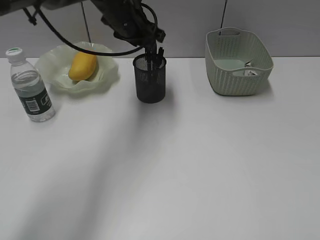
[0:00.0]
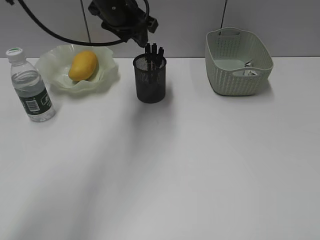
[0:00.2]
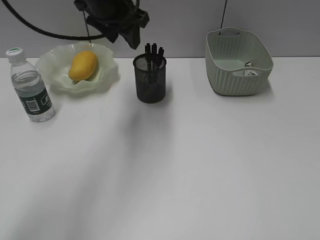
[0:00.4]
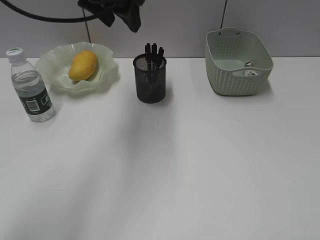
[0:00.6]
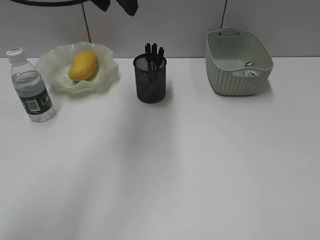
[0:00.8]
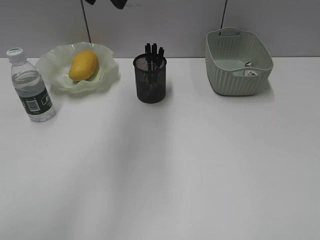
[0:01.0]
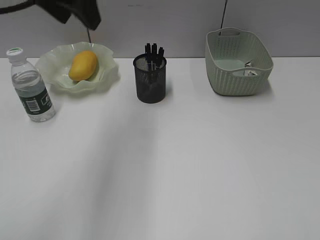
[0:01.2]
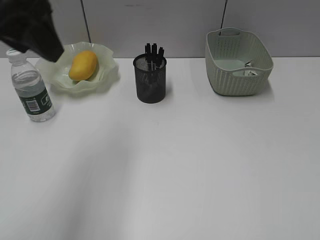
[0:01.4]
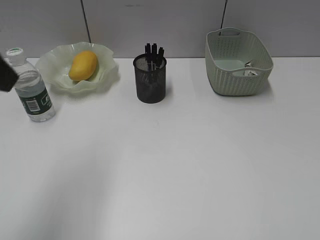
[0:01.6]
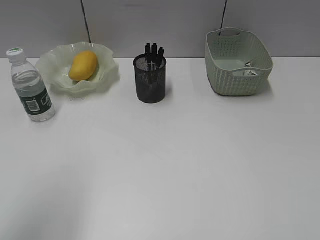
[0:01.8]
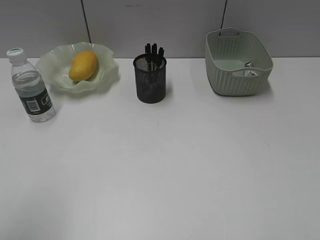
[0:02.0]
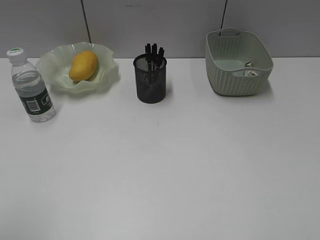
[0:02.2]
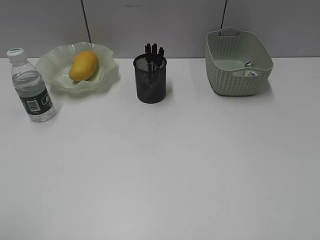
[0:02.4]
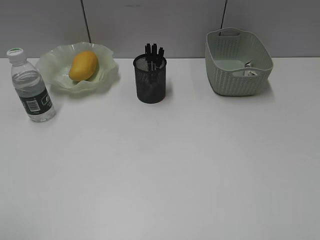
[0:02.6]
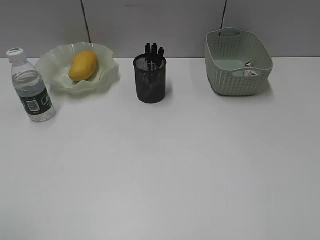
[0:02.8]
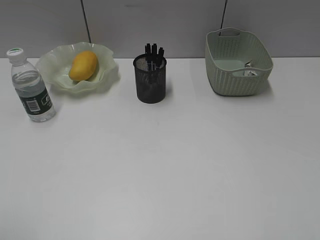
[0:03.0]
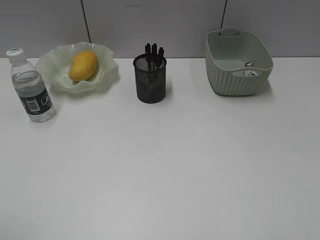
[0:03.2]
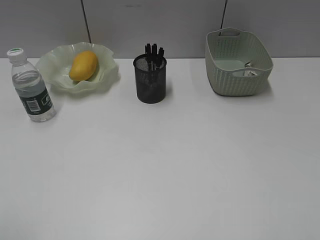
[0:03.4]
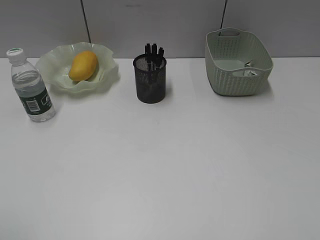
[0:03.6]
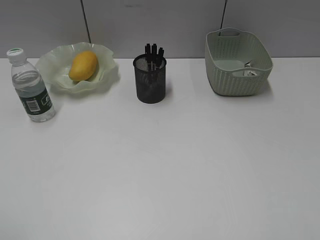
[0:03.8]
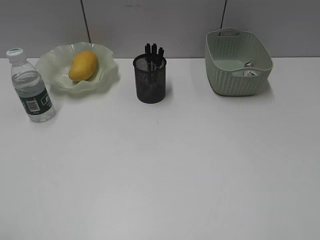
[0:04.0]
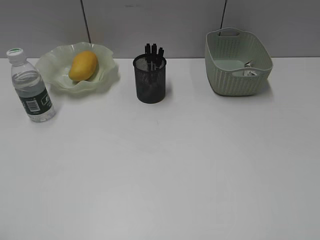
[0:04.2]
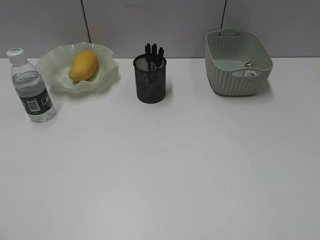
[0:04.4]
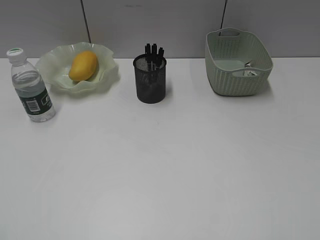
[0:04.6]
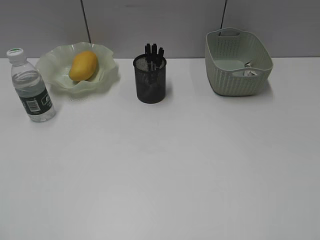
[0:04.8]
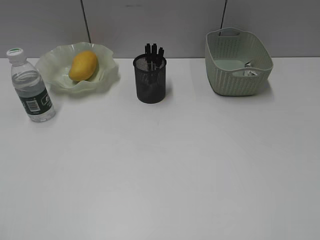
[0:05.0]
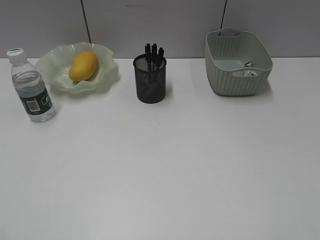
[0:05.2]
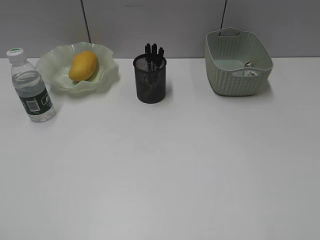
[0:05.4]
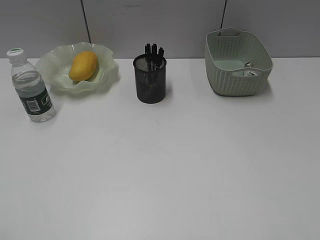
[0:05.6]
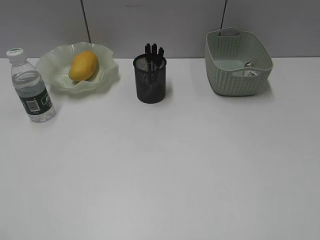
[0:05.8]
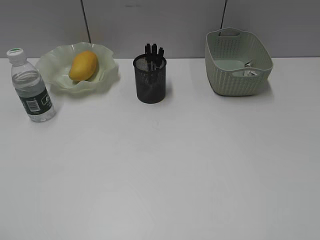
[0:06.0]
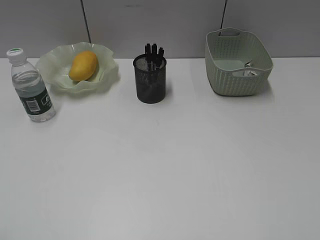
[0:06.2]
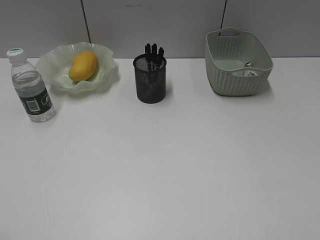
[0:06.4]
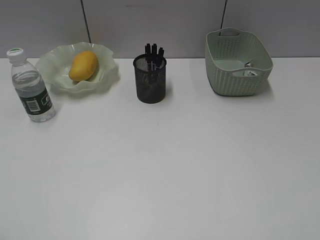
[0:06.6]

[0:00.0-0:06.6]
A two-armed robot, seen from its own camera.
0:00.0 to 0:01.6: The left gripper is displaced backward, to the left and upward by some 35 cm.
0:01.6 to 0:03.2: The left gripper travels backward, to the left and downward by some 20 cm.
0:05.0 to 0:06.6: Both grippers stay about where they are.

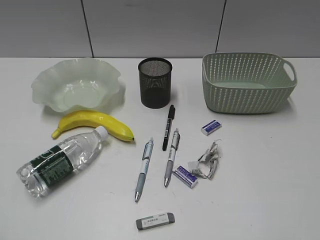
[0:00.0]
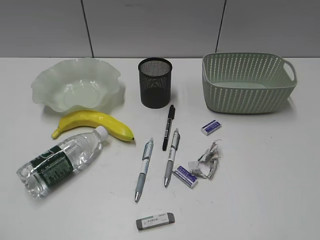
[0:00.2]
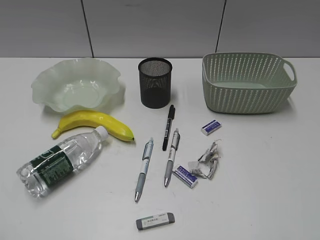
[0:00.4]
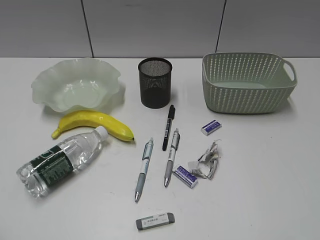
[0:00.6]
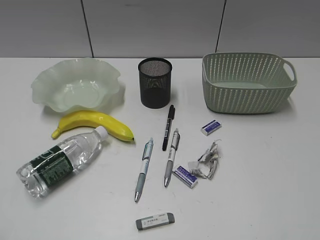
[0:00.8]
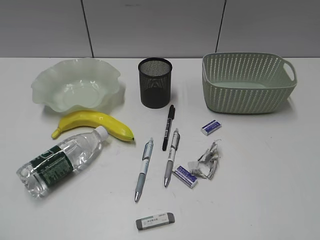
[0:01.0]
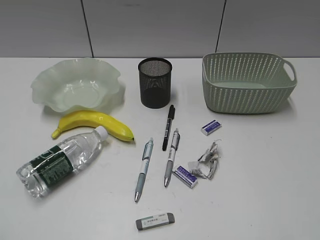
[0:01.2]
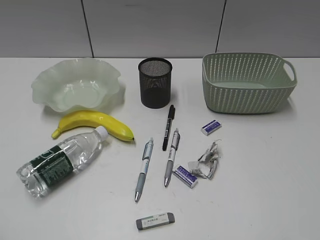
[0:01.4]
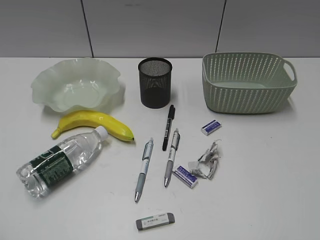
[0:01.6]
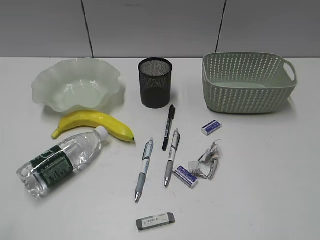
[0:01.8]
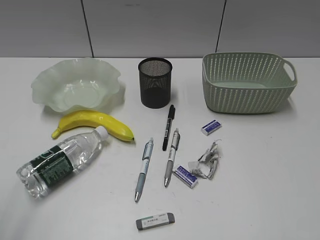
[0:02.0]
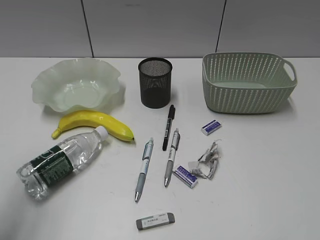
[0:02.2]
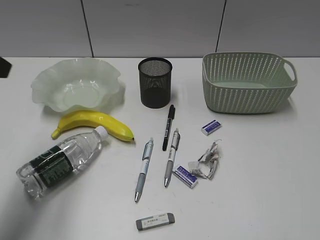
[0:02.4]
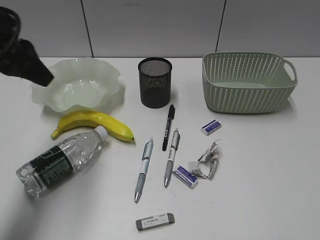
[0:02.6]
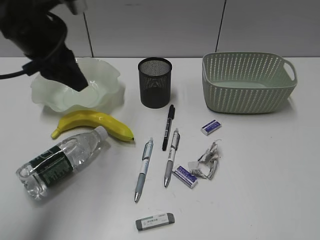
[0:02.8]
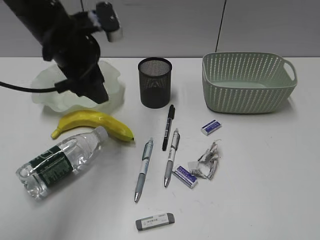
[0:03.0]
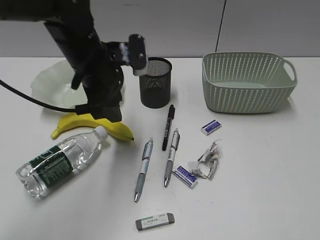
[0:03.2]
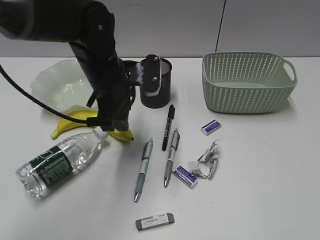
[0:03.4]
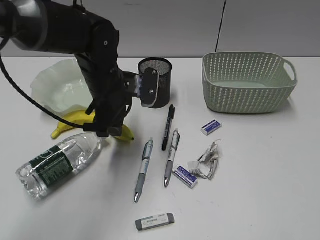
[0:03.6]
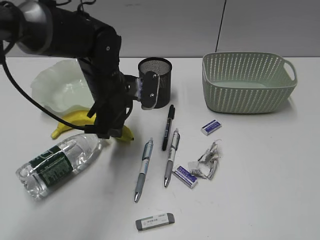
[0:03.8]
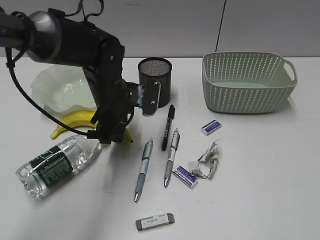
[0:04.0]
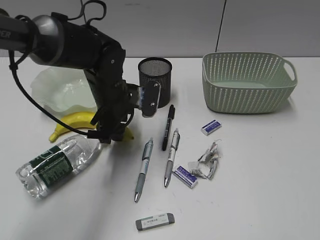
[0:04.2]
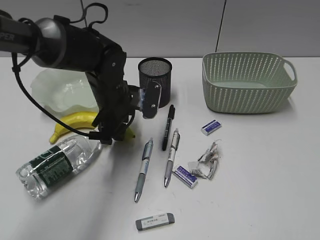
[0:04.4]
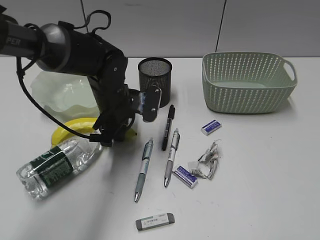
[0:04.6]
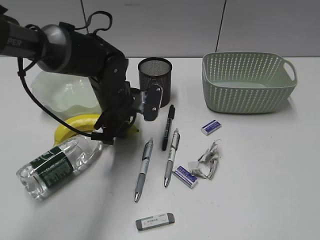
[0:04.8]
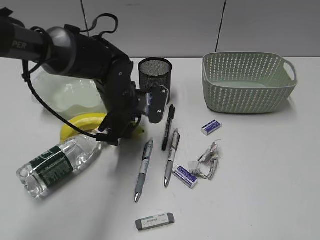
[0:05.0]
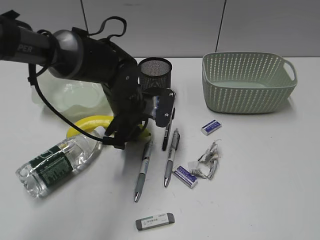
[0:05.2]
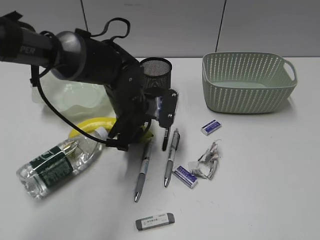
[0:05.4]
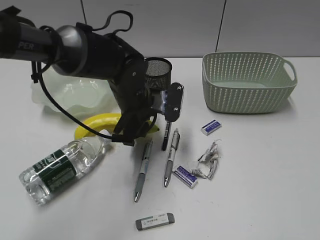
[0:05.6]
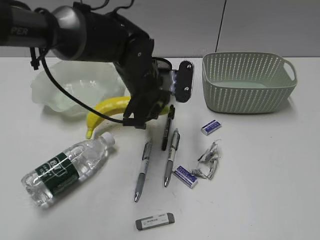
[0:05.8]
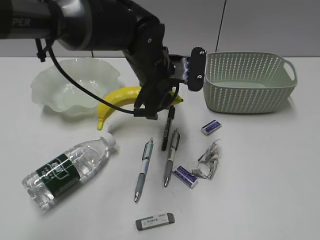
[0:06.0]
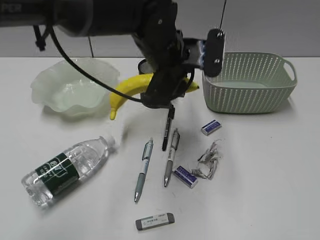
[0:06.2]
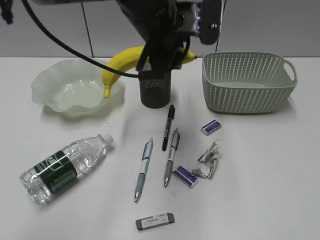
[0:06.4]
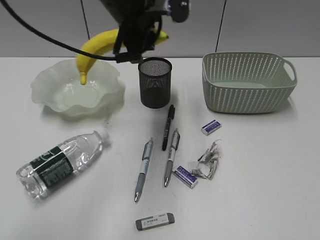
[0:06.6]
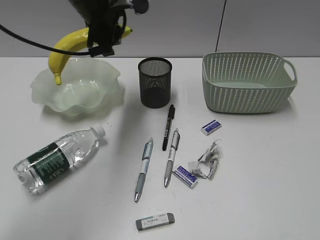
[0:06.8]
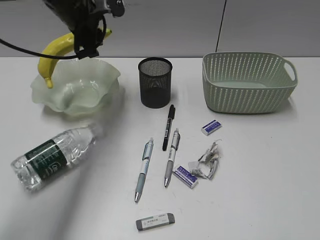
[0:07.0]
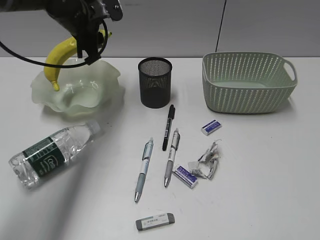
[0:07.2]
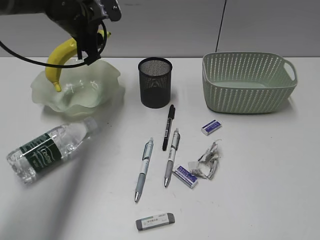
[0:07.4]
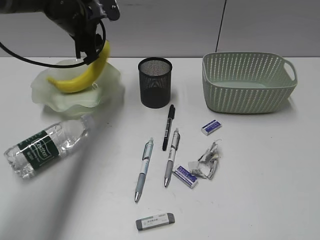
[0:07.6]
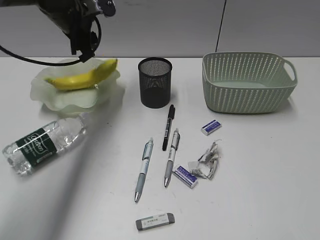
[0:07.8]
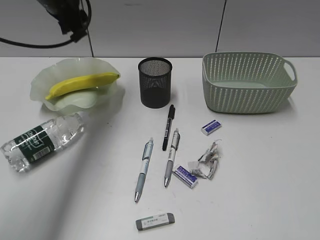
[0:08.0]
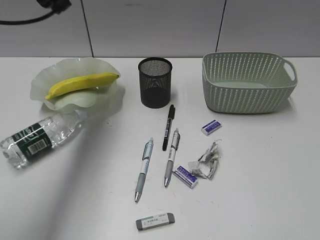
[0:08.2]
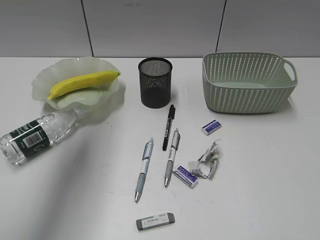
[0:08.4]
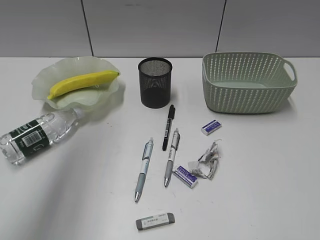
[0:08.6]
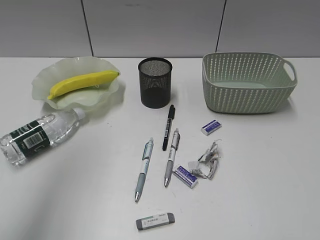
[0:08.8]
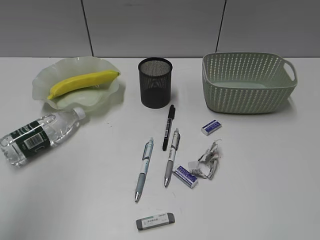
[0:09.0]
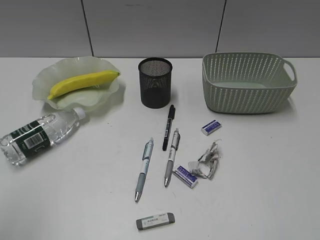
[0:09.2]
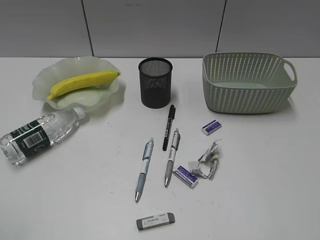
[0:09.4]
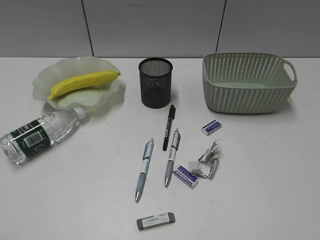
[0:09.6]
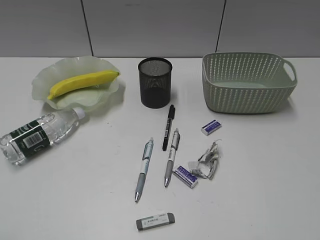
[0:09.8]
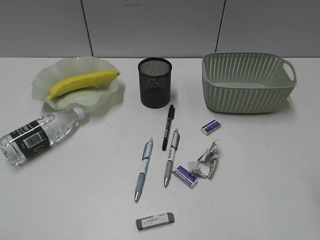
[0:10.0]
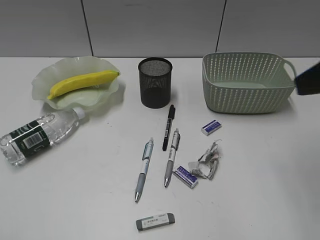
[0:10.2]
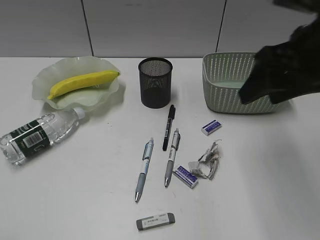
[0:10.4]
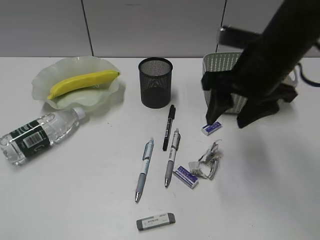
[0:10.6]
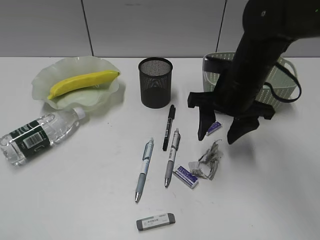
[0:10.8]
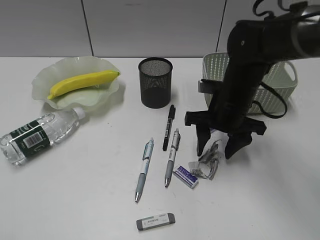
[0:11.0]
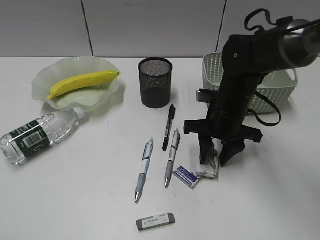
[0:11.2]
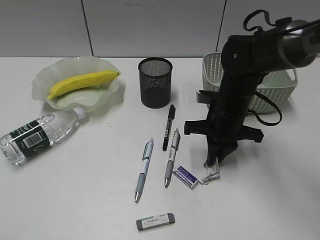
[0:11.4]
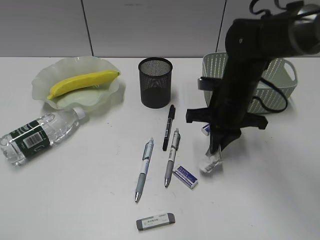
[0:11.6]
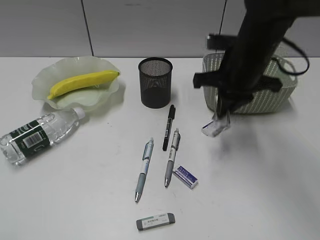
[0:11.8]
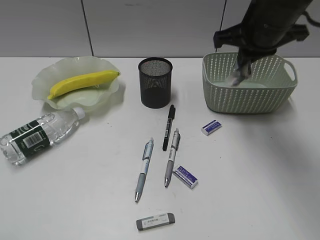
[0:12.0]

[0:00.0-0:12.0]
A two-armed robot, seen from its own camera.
Step, 0:01.6 to 0:04.6: Grasp the banana with left gripper.
Step, 0:04.8 to 0:07.6: Place the banana in the plate with left gripper.
Step, 0:07.8 to 0:11.4: Grasp the waste paper with right gripper.
0:01.6 to 0:03.0: The left gripper travels forward and to the right by roughly 40 cm.
0:03.0 to 0:04.4: The left gripper shifts roughly 15 cm downward and to the right.
0:04.4 to 0:06.0: The left gripper travels to the right and upward by about 10 cm.
0:06.0 to 0:07.6: The left gripper heads to the left and forward, covering approximately 20 cm.
0:07.6 to 0:09.0: The left gripper goes roughly 40 cm backward and upward.
0:09.0 to 0:10.4: The left gripper shifts roughly 20 cm backward and downward, while the right gripper shifts approximately 30 cm forward and to the left, and opens.
0:10.4 to 0:12.0: The right gripper is displaced forward by about 10 cm, travels downward and back again, approximately 20 cm each way, and closes up.

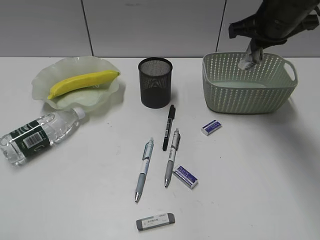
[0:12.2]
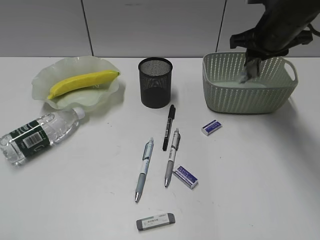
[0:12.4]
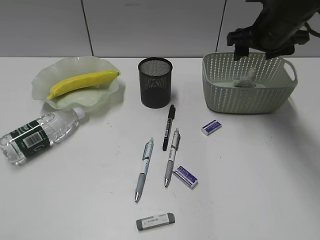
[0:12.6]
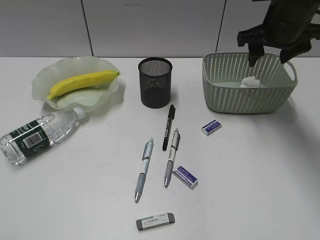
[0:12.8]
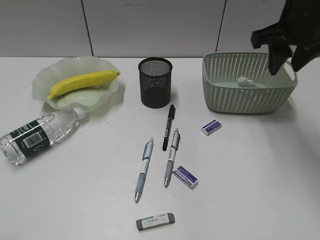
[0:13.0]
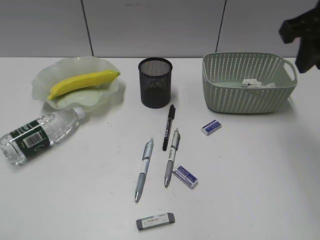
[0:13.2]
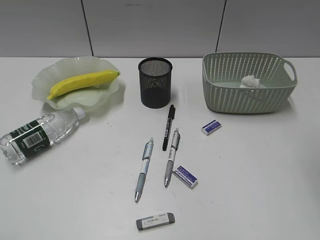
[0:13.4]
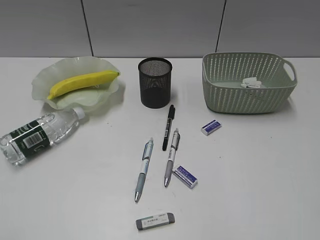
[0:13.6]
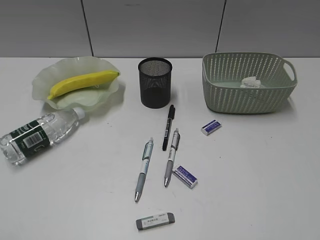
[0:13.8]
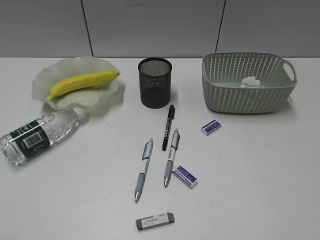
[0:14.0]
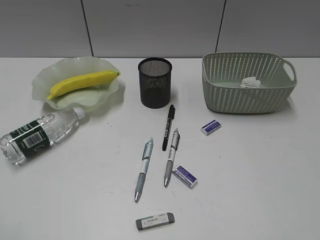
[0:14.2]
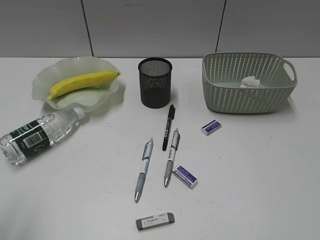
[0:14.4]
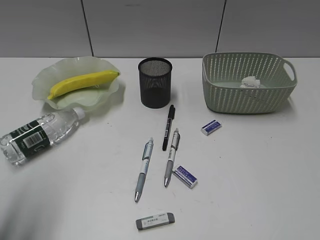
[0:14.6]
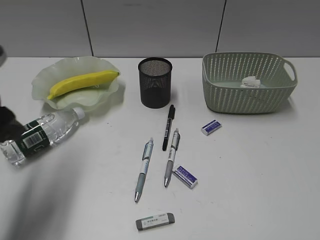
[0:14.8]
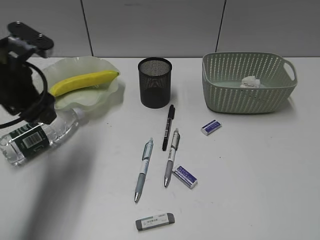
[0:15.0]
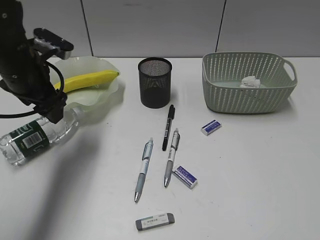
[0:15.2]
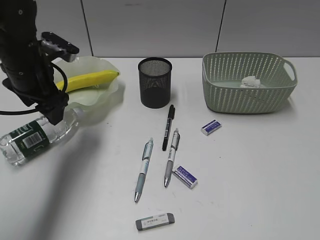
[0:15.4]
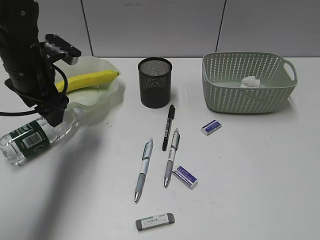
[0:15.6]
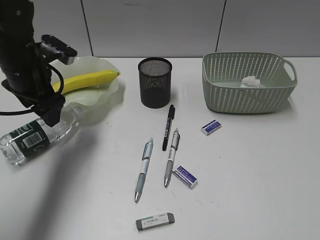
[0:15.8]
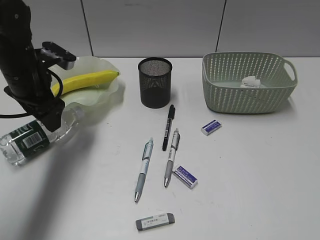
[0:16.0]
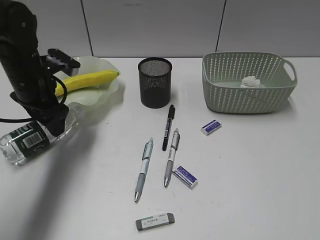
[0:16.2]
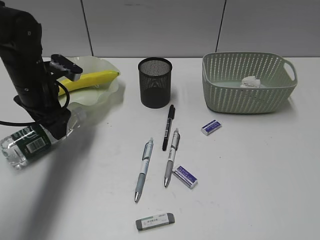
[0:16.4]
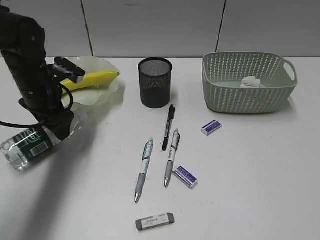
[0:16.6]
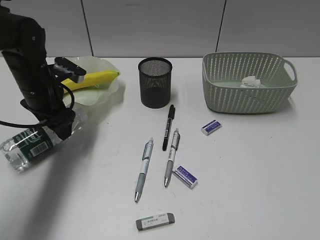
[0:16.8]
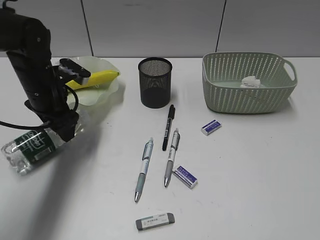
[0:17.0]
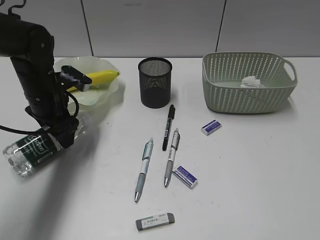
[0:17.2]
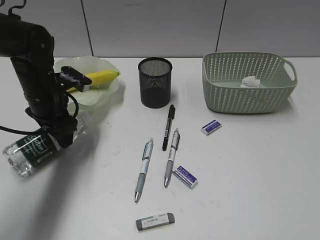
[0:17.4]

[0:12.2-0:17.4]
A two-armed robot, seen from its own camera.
0:12.2 to 0:14.0: The right gripper goes roughly 35 cm backward, and opens, then closes again.
0:14.0 to 0:15.6: The left gripper is displaced forward by approximately 35 cm, and opens up.
0:15.6 to 0:17.4: The left gripper is displaced downward by approximately 5 cm.
